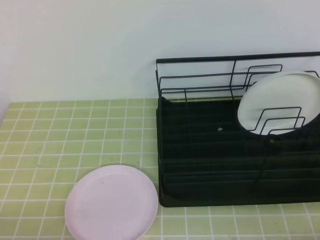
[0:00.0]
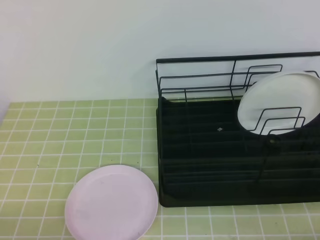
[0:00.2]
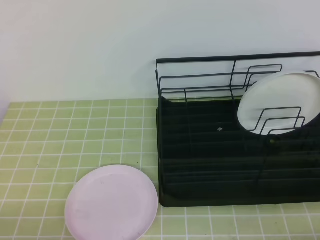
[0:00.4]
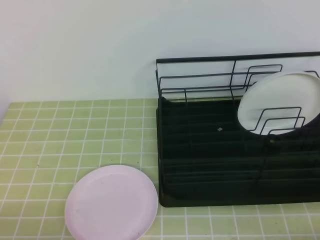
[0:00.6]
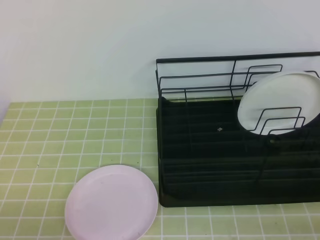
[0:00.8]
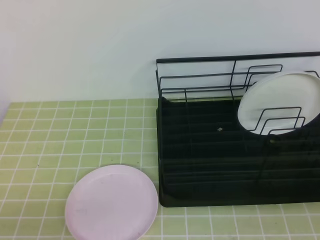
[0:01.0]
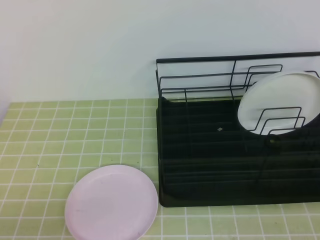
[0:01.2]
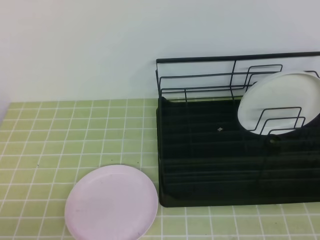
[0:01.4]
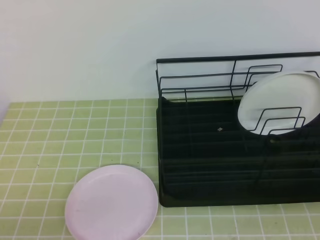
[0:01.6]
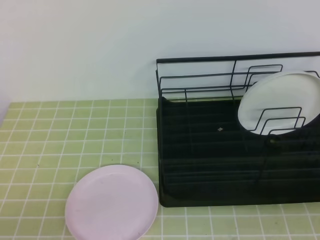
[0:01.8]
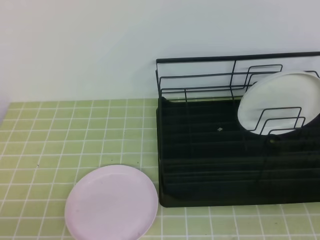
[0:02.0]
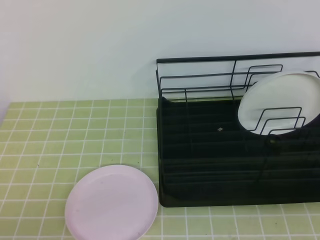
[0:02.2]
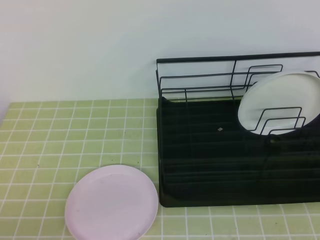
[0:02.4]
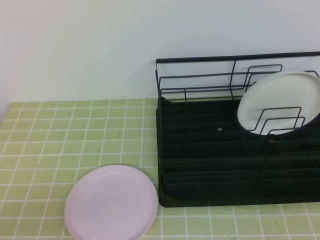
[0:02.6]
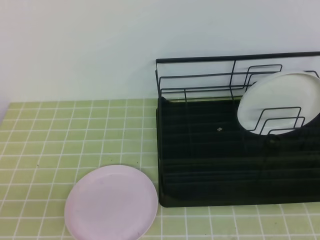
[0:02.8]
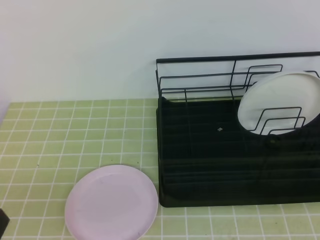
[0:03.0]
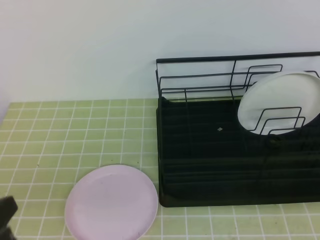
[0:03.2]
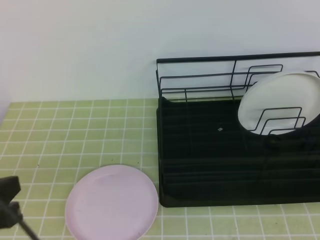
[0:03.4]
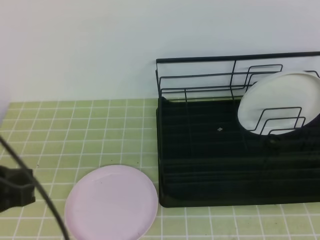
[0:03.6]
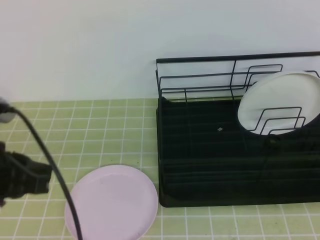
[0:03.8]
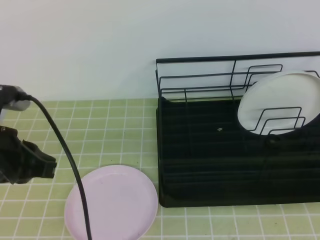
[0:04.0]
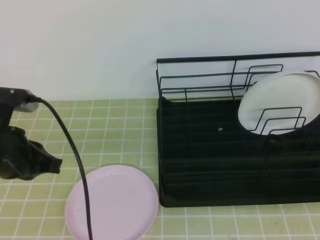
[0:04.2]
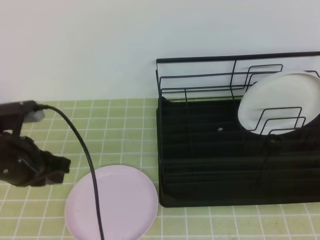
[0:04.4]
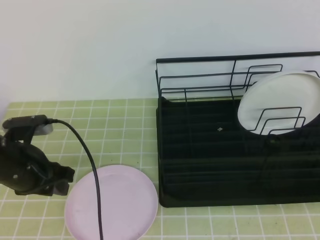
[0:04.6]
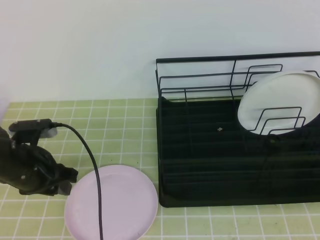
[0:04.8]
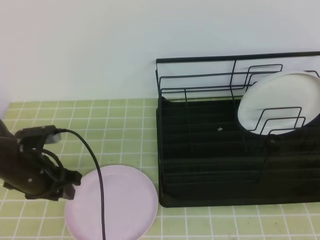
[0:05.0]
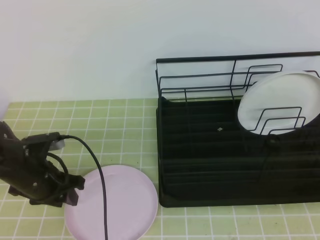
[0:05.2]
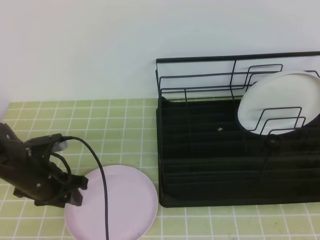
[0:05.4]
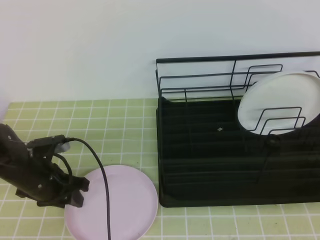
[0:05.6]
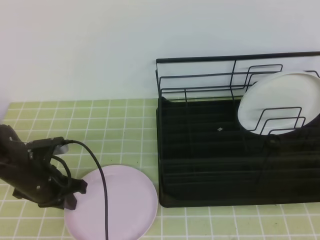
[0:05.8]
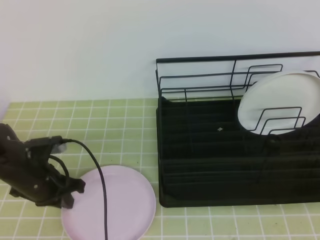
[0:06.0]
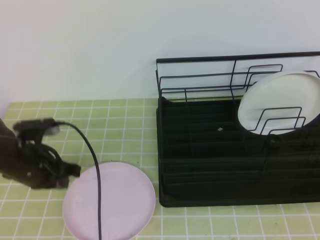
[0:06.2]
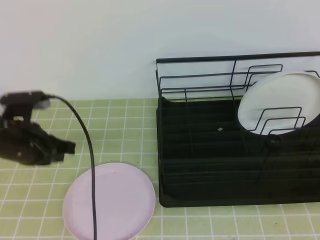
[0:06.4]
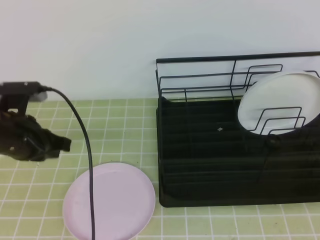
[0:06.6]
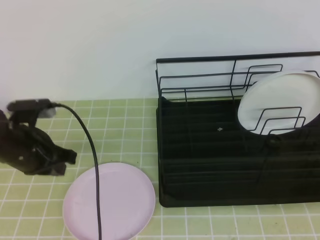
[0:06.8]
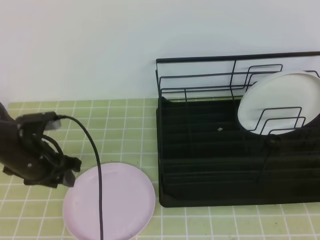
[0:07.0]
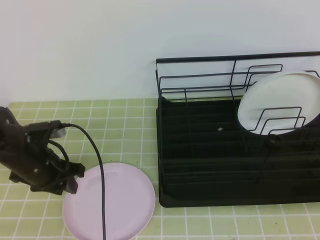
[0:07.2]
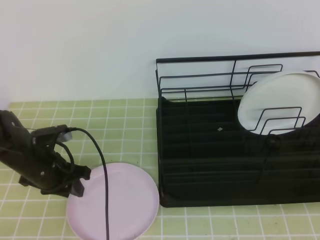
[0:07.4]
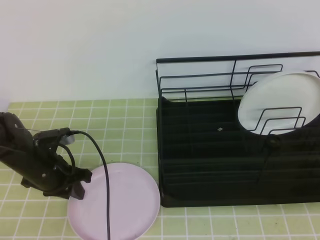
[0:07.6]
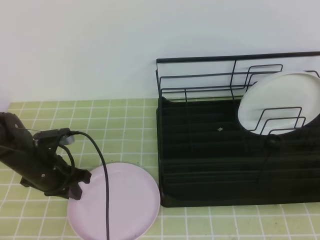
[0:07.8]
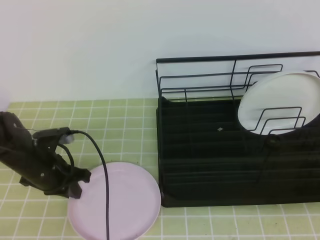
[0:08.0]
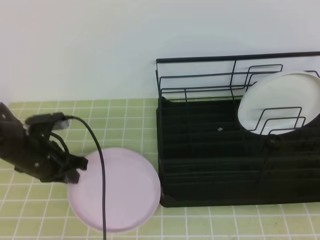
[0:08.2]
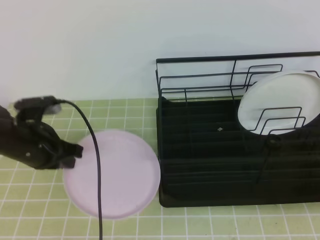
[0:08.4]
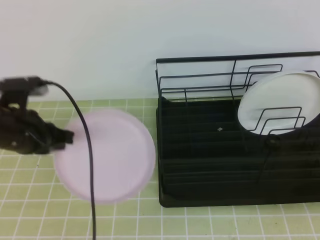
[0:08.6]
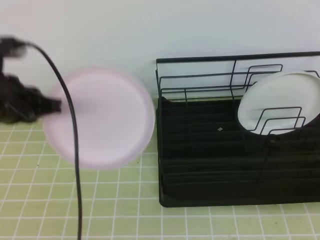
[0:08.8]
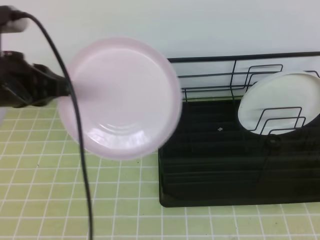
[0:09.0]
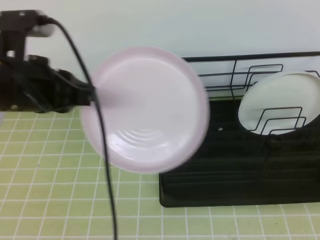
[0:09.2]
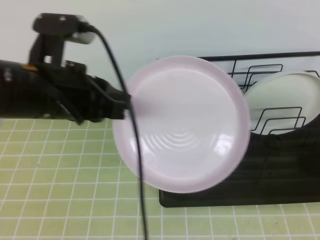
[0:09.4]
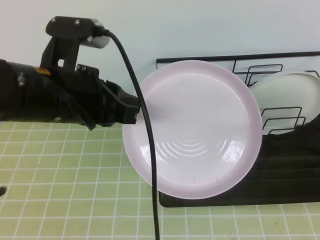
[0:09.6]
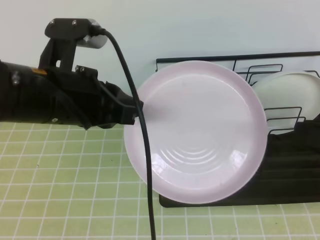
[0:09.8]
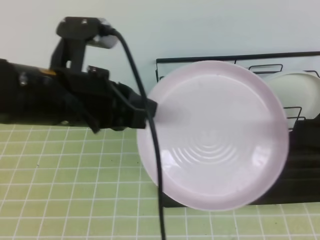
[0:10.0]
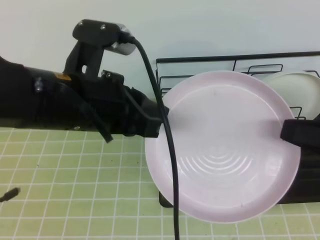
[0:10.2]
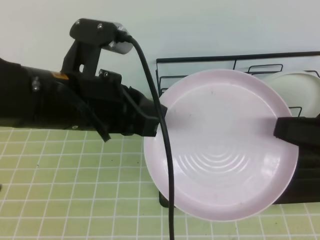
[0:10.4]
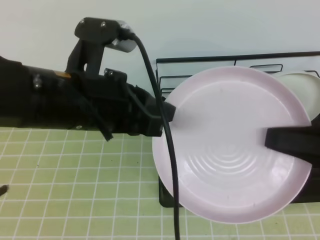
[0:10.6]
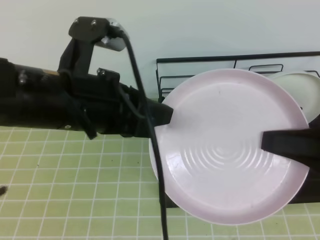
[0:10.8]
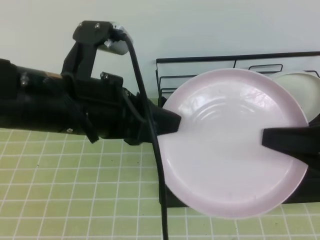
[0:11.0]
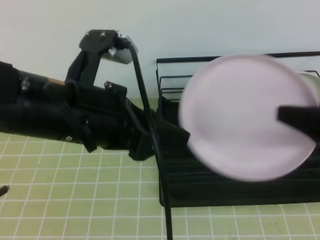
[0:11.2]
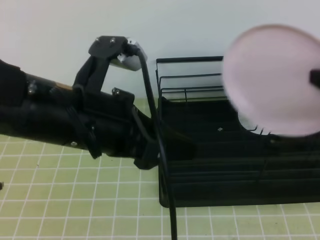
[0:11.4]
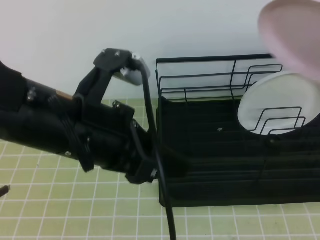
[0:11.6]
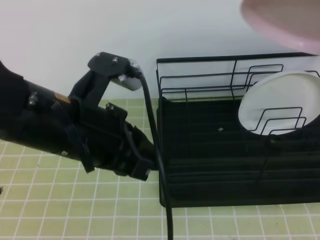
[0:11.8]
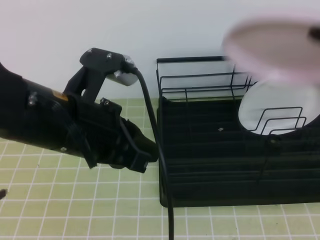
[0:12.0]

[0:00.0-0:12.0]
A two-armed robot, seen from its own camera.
0:03.0 to 0:04.4: The left gripper moves forward, roughly 20 cm.
0:04.4 to 0:06.0: The left gripper moves downward and forward, some 10 cm, and opens, then closes once more.
0:06.0 to 0:07.6: The left gripper goes upward and returns, roughly 10 cm each way, and opens and closes again.
0:07.6 to 0:09.0: The left gripper travels upward by roughly 20 cm, and closes its fingers.
0:09.0 to 0:10.4: The right gripper moves forward, roughly 5 cm, and opens up. Meanwhile the left gripper is displaced to the right by some 10 cm.
0:10.4 to 0:12.0: The right gripper is displaced forward and upward by roughly 10 cm, and closes. The left gripper opens, then closes once more.

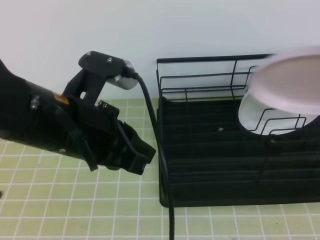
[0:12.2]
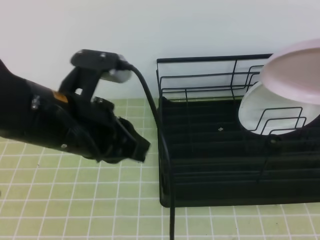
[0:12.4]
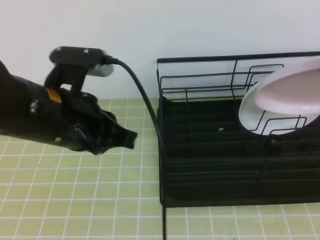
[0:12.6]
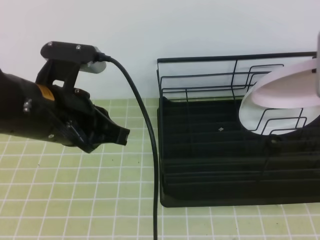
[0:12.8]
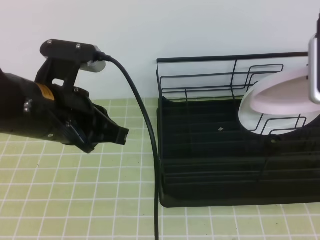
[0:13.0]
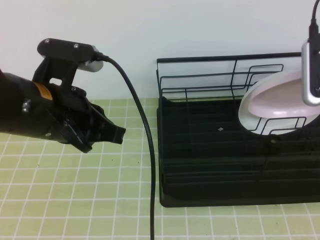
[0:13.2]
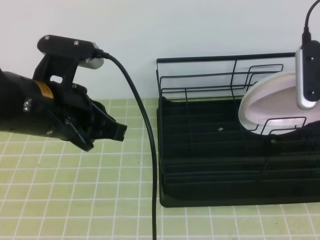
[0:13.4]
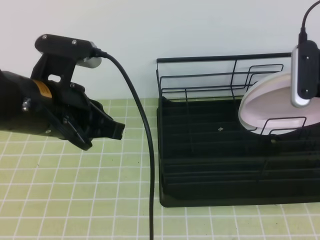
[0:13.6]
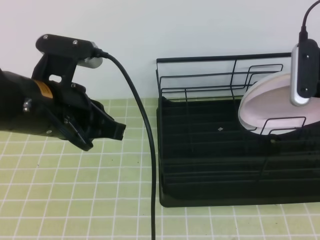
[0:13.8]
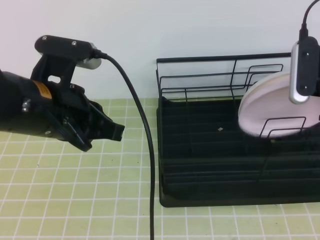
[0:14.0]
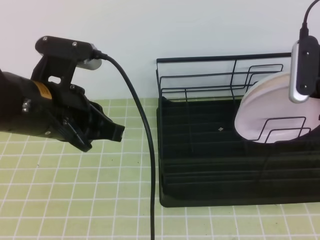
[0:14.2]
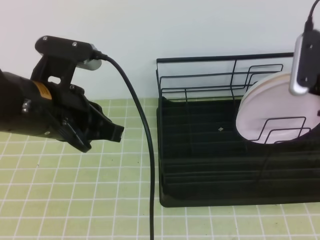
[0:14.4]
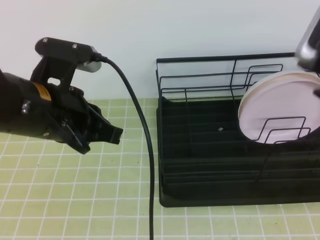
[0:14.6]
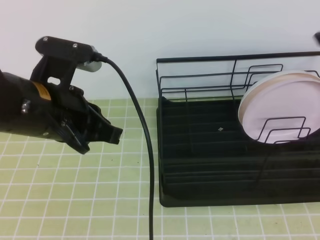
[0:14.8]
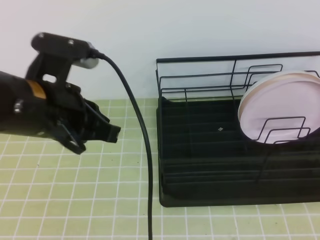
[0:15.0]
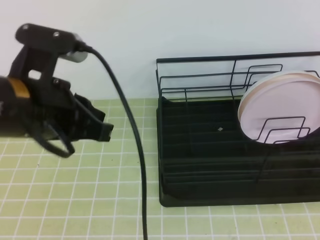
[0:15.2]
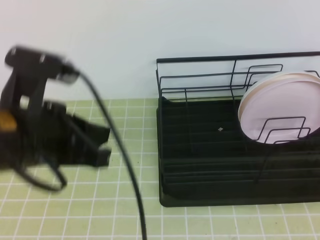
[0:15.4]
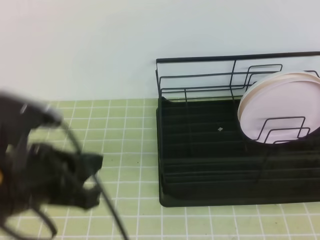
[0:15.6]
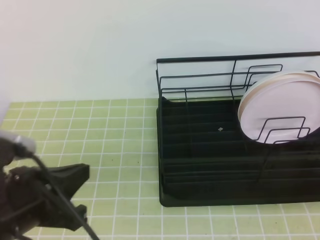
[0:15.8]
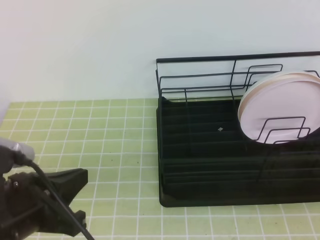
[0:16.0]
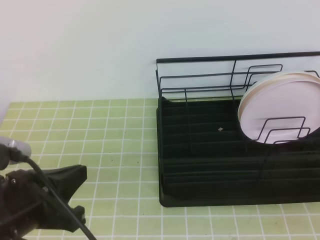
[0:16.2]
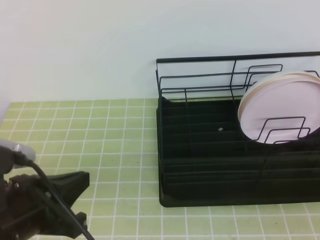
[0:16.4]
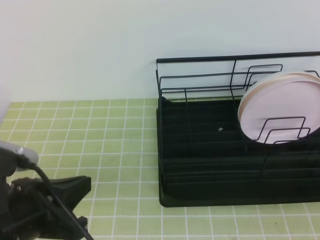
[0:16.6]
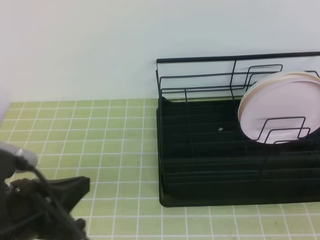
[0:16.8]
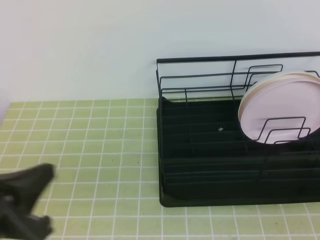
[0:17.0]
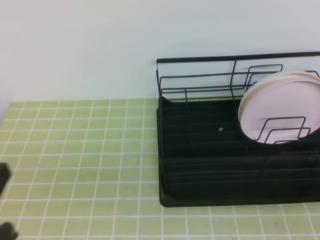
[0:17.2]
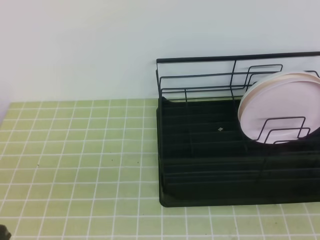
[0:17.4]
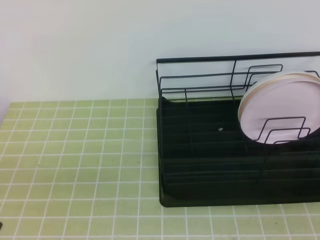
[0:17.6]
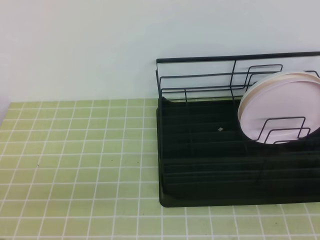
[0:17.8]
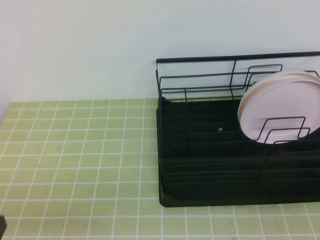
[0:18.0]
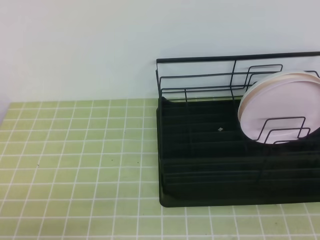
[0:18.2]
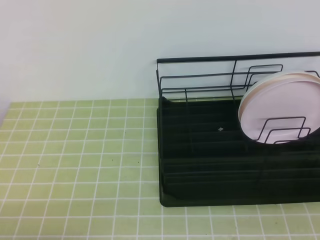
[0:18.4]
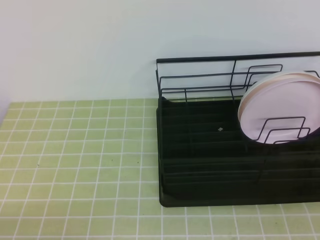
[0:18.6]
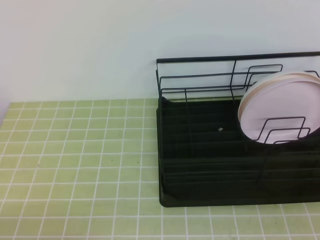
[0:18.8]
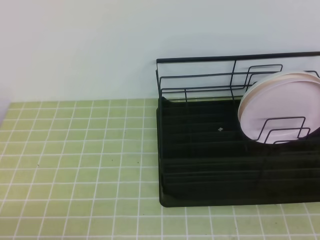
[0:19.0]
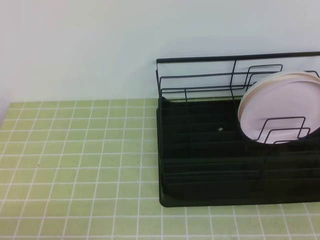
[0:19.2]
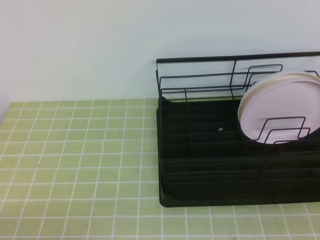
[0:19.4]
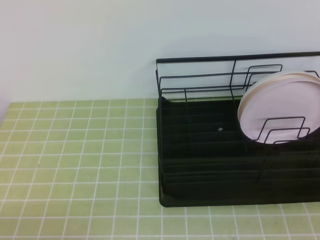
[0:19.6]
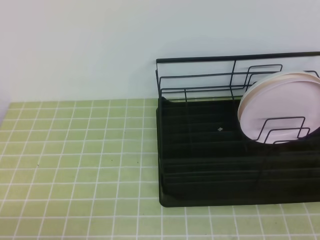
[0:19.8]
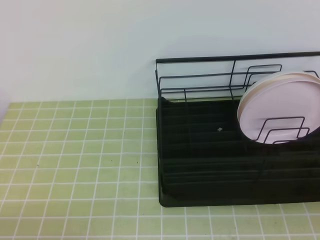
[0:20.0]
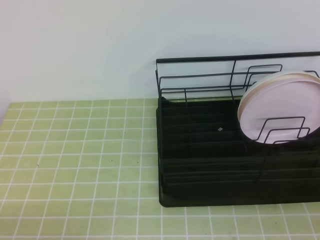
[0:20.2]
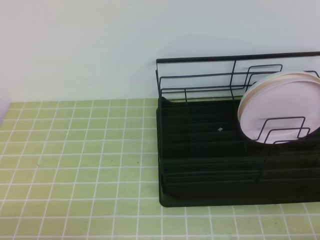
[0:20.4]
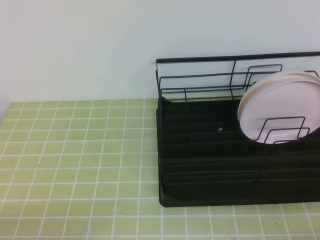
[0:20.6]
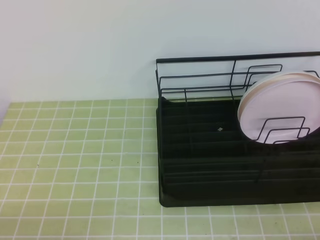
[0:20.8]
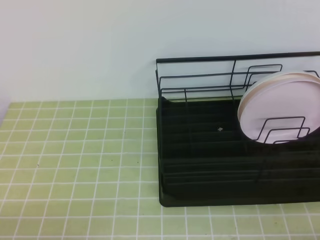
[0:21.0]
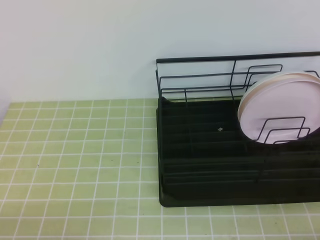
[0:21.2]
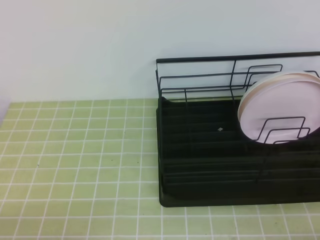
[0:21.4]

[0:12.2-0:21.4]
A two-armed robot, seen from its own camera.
0:12.2 to 0:13.8: The right gripper goes approximately 10 cm downward and forward.
0:13.8 to 0:15.2: The right gripper shifts approximately 20 cm backward and upward, and closes.
0:15.2 to 0:16.8: The left gripper is displaced backward and downward by about 10 cm; the right gripper travels downward and backward by approximately 20 cm.
0:16.8 to 0:18.4: The left gripper travels downward, backward and to the left by about 15 cm.
